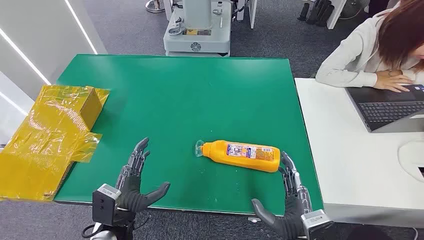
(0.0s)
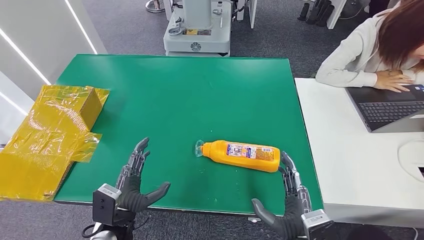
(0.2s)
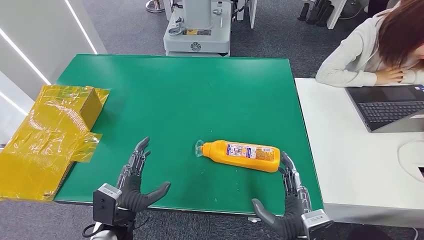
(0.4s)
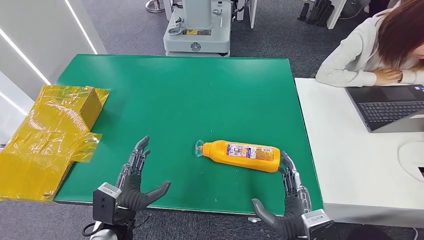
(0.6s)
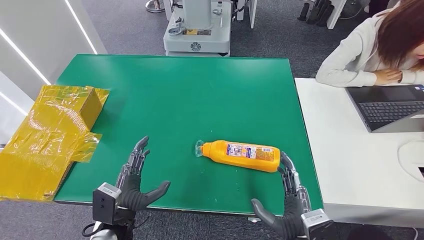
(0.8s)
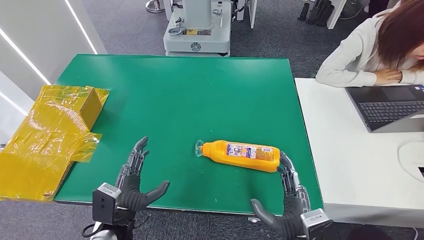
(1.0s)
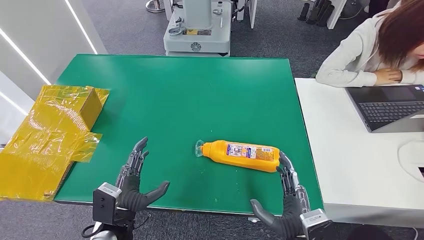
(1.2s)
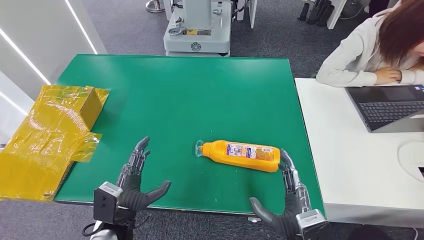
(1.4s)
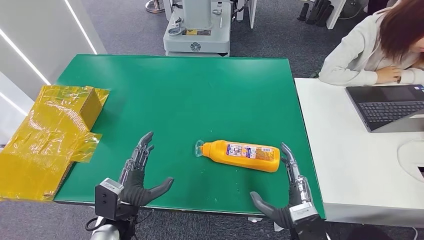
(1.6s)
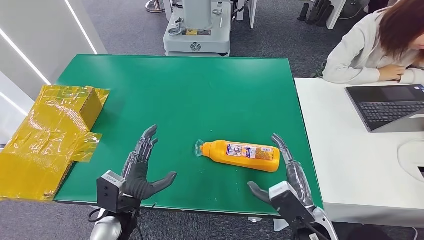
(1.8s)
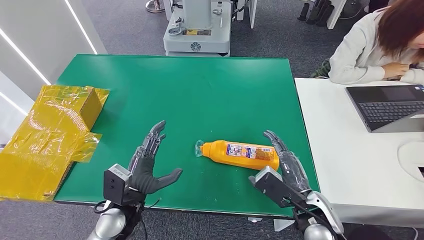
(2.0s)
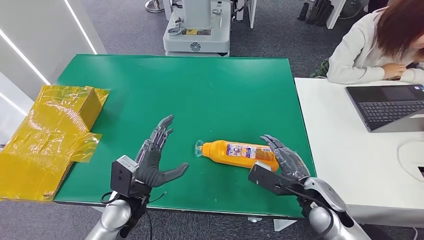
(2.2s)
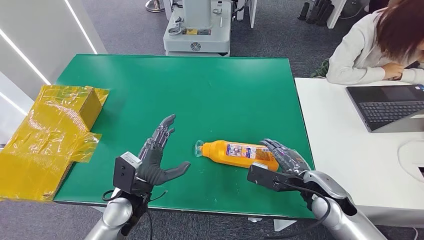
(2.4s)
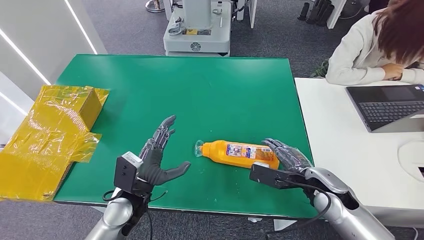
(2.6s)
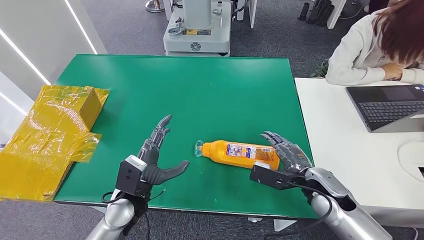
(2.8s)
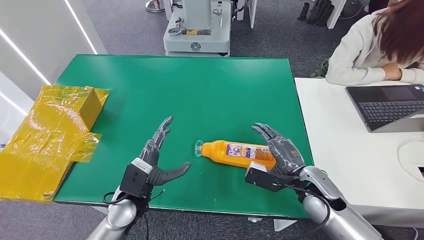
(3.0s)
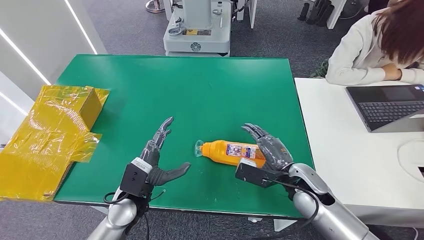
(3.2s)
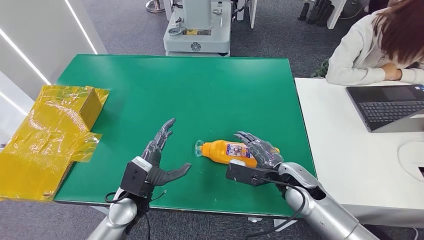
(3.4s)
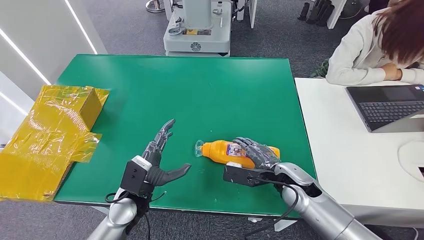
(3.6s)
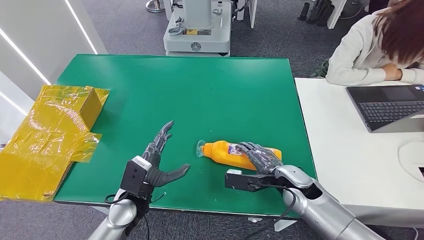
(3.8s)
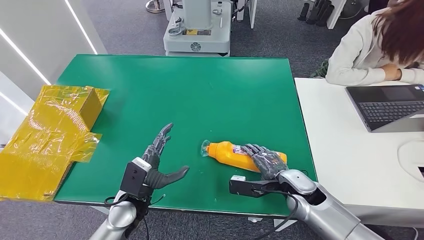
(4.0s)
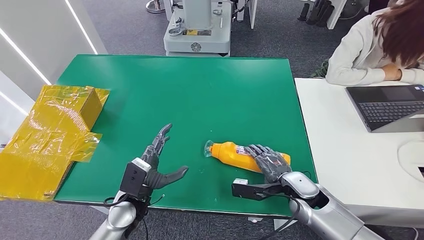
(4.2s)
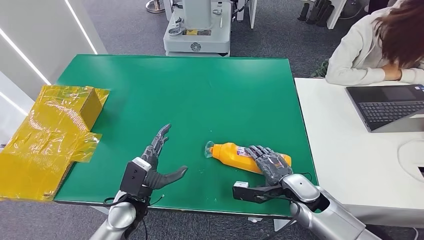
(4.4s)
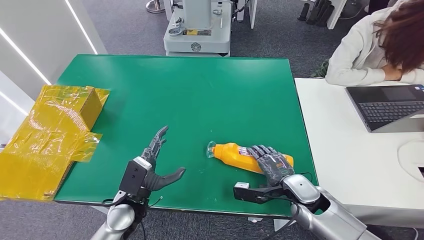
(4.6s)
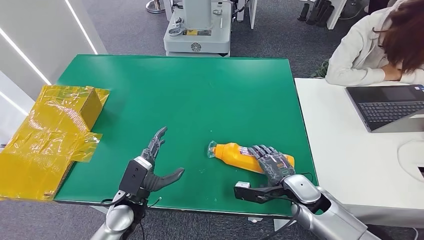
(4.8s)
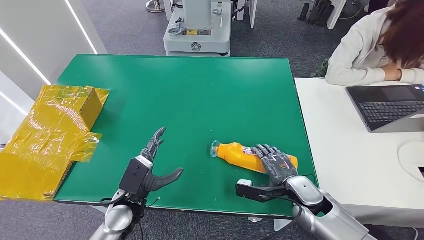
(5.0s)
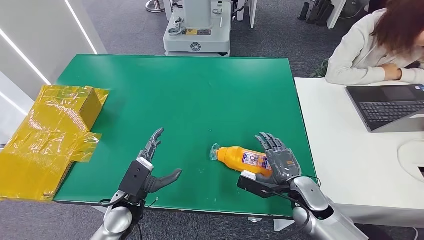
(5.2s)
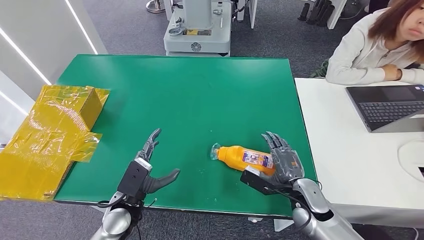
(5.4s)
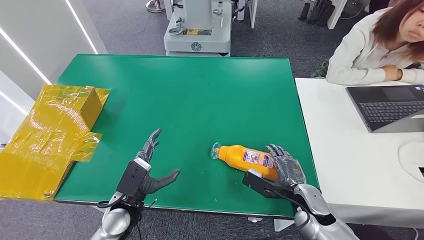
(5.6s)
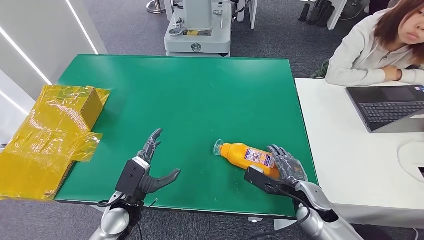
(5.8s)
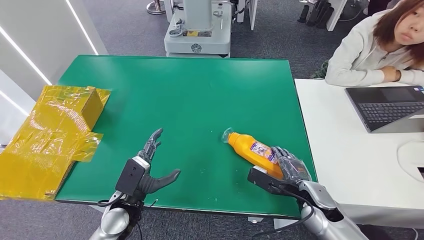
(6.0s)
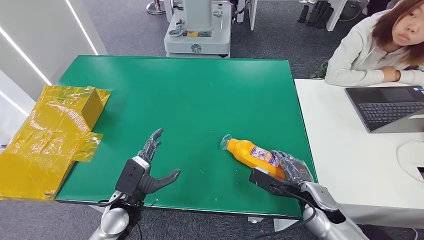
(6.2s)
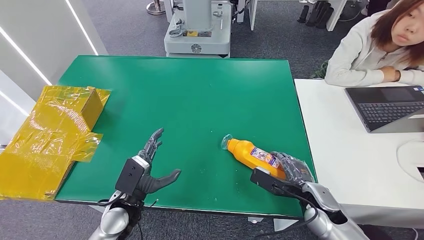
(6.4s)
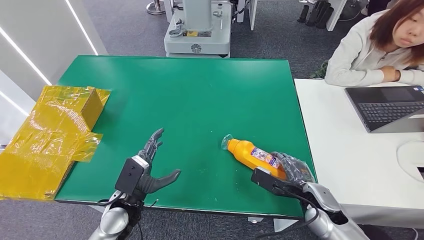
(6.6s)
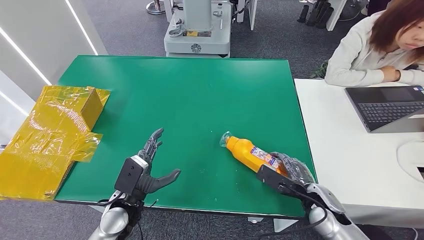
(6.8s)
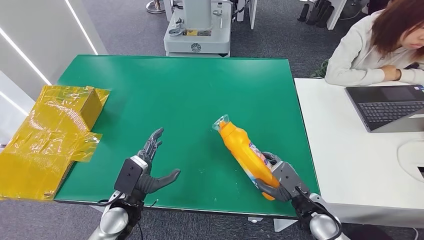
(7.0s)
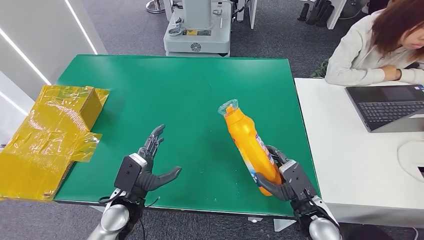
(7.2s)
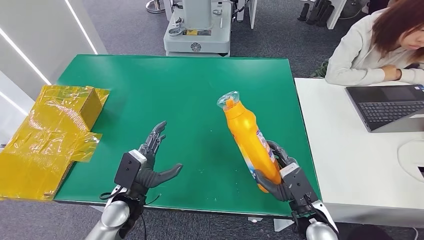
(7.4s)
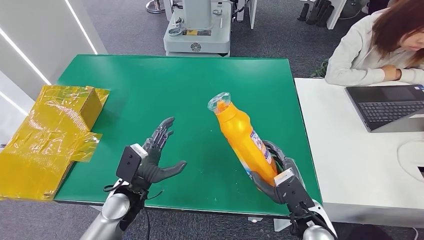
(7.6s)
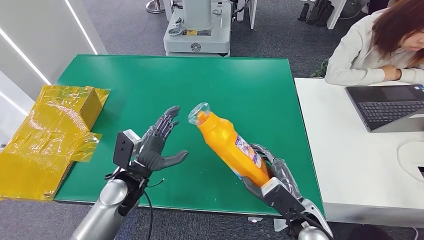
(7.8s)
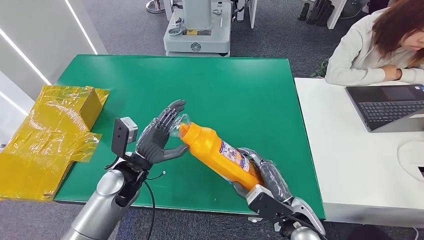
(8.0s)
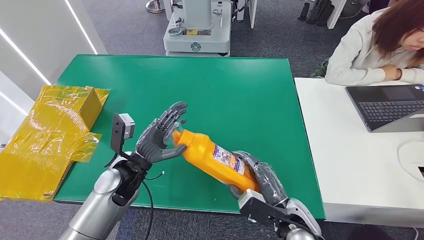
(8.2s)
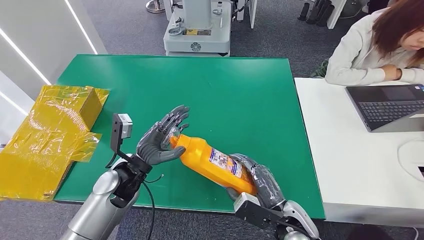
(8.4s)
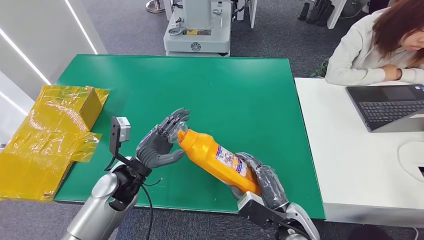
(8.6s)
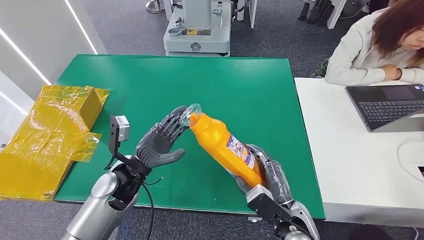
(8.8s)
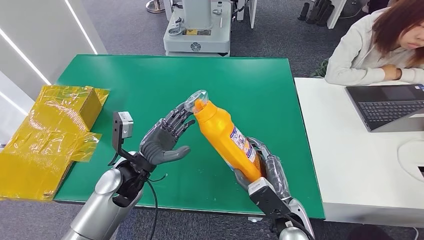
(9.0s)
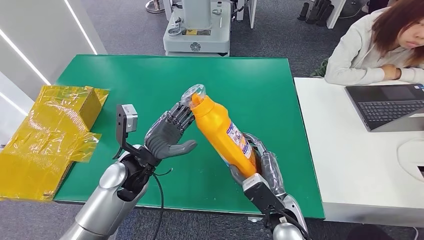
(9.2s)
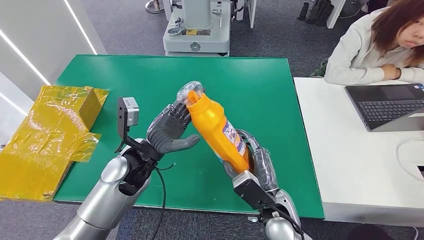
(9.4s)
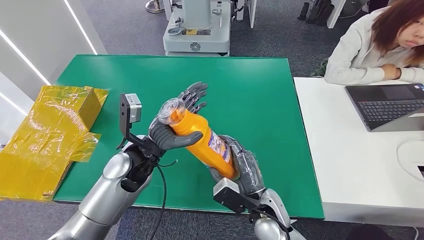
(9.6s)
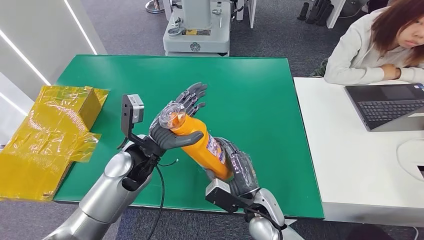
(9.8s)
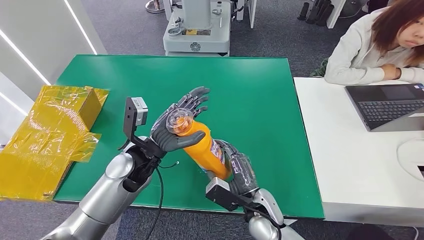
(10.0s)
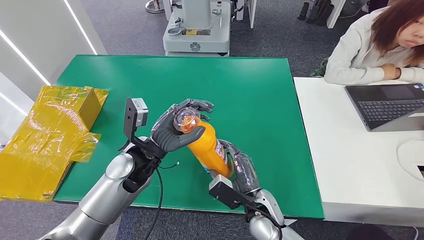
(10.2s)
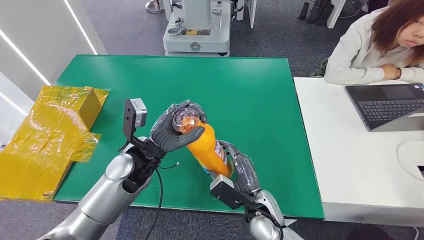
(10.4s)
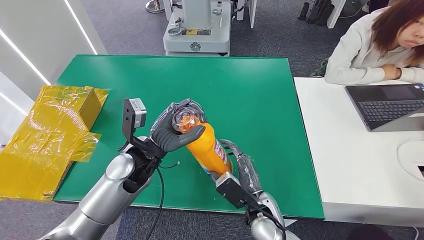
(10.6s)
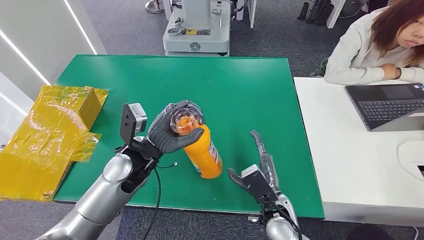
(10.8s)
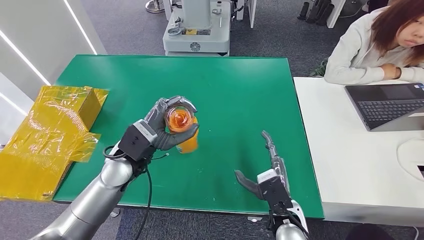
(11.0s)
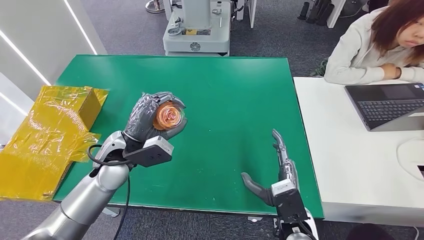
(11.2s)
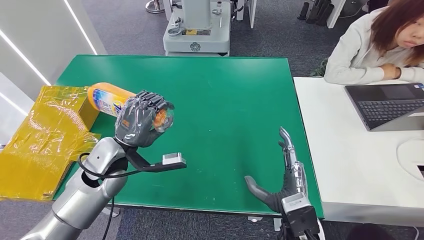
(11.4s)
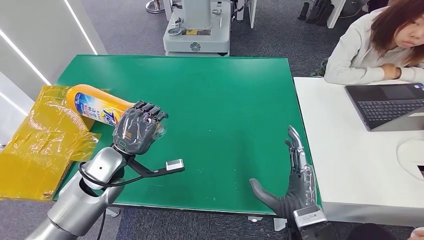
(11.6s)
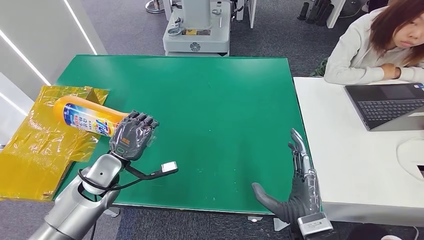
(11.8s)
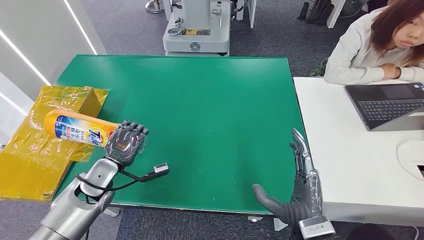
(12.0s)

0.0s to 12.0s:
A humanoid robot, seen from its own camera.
Step, 0.0s to 7.6s: Pick up the bottle from the table.
1.6s to 3.0s: The right hand moves forward and to the right, some 15 cm. The left hand travels forward by roughly 5 cm.
6.0s to 7.6s: The right hand is displaced backward by some 5 cm.
7.6s to 9.0s: The left hand travels upward by about 5 cm; the right hand shifts approximately 5 cm to the left.
9.0s to 10.4s: The right hand goes approximately 5 cm to the left.
10.4s to 12.0s: The left hand heads to the left and downward, covering approximately 15 cm, while the right hand goes some 15 cm backward, upward and to the right.

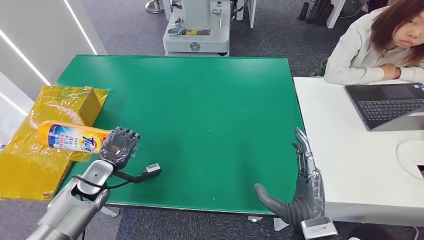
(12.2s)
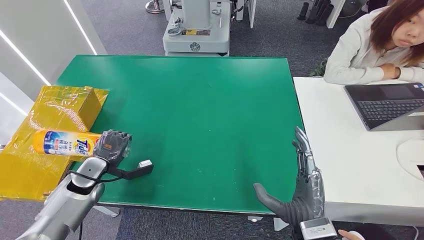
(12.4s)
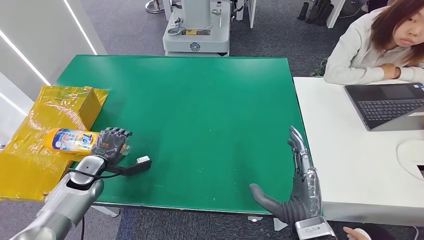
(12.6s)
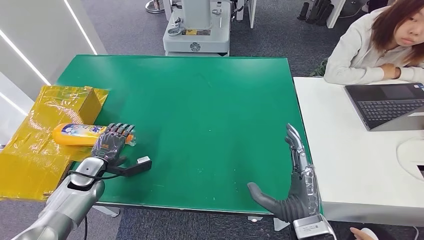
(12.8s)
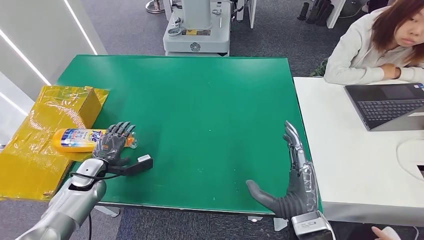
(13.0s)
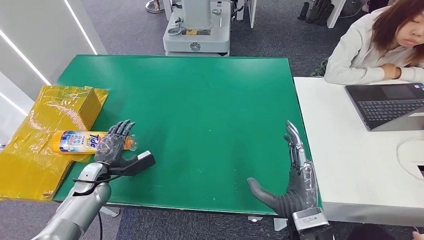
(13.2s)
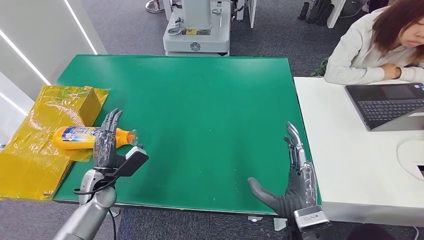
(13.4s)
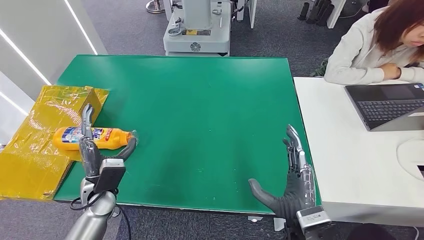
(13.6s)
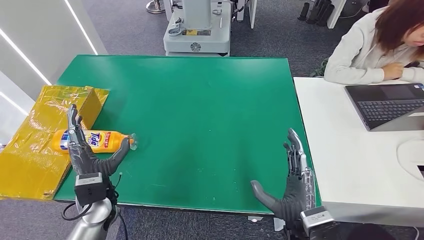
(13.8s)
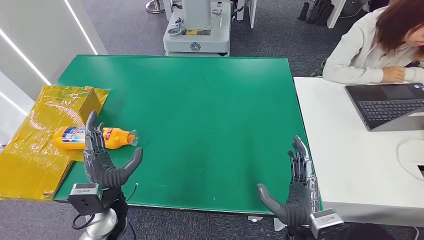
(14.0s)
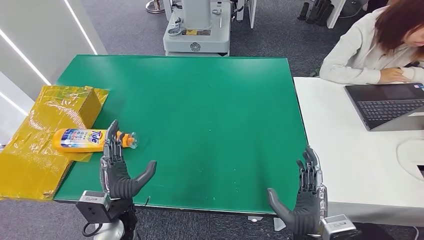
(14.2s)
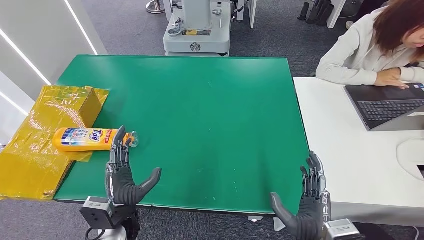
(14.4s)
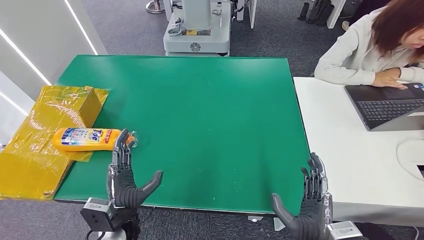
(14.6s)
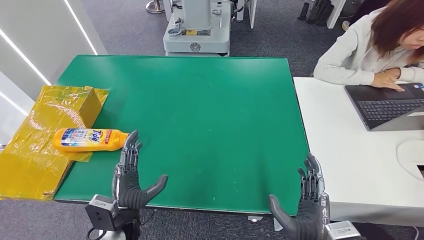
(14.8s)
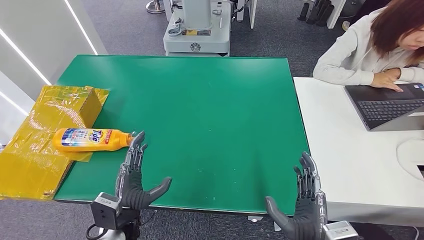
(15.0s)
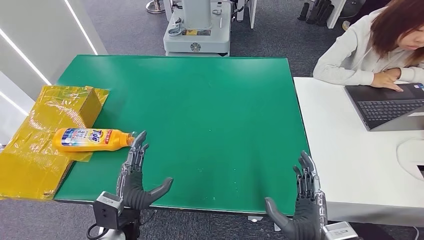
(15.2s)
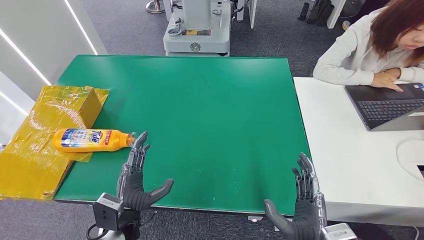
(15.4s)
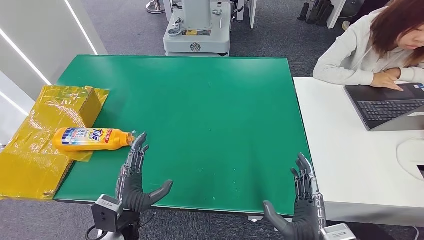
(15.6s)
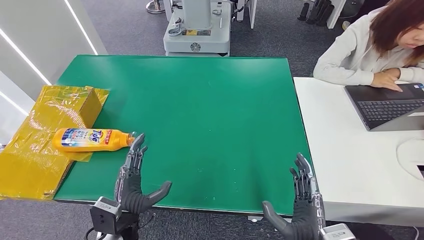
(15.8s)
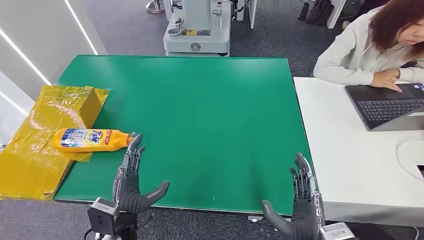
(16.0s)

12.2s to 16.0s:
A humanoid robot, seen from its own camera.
Step, 12.2s to 15.8s: Turn the bottle to the front side.
13.4s to 14.8s: The left hand moves to the right and backward, about 15 cm, while the right hand shifts roughly 5 cm backward.
14.8s to 16.0s: The hands move only a little.
